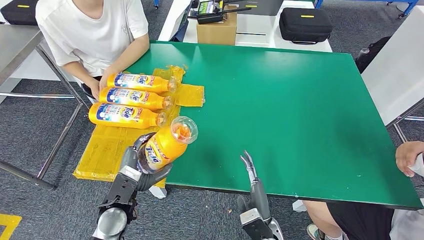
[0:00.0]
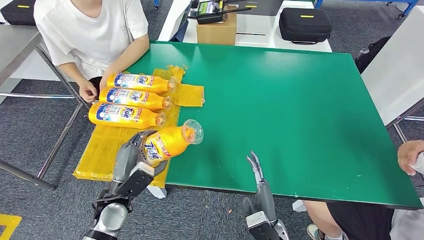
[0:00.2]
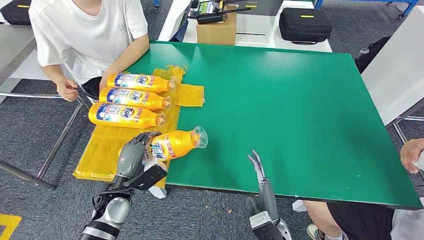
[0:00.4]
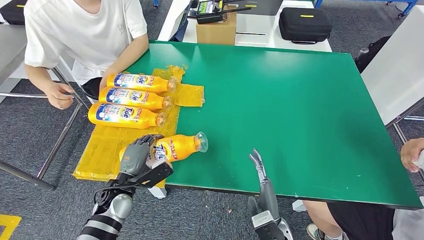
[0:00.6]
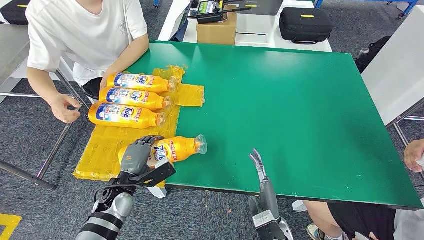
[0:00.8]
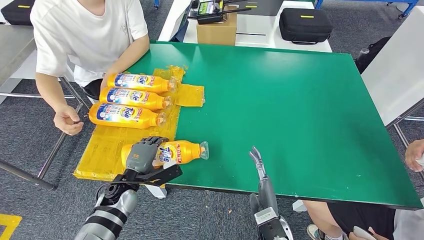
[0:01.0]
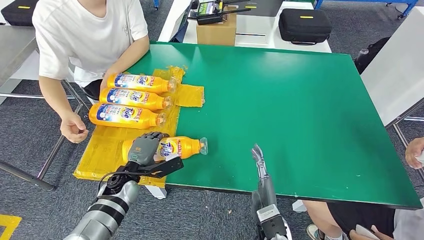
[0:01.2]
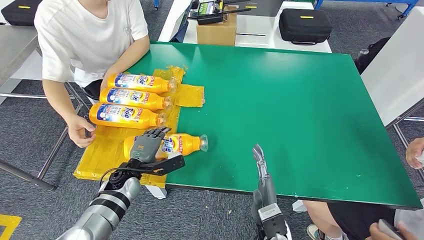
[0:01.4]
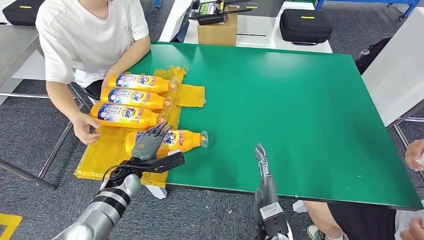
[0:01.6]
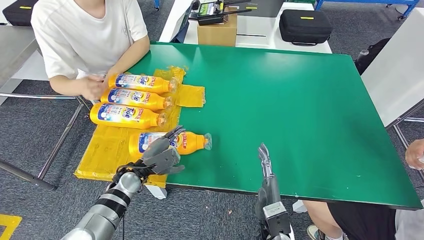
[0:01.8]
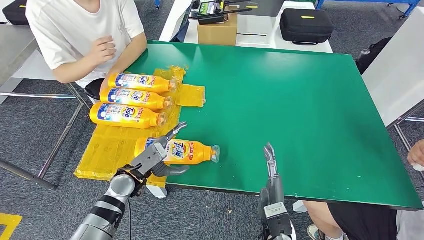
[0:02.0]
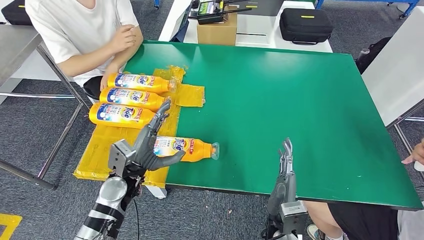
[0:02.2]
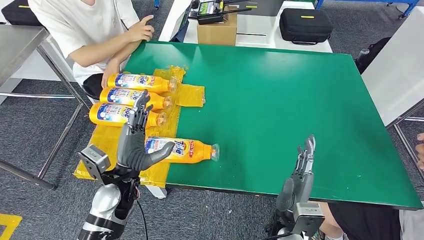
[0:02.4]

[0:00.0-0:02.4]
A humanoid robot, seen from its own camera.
Step, 0:00.0 to 0:02.4: Flip the bottle to face forward.
0:00.0 to 0:01.2: The left hand goes about 10 cm forward.
